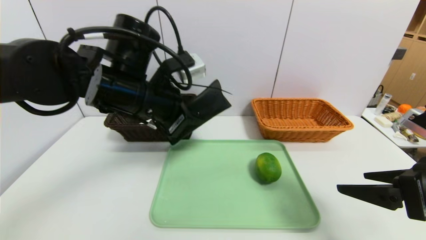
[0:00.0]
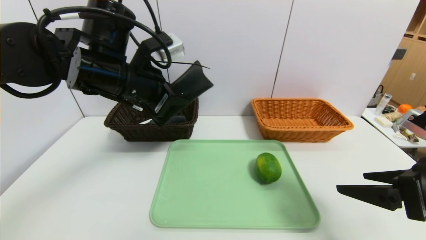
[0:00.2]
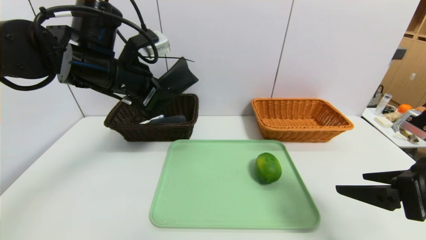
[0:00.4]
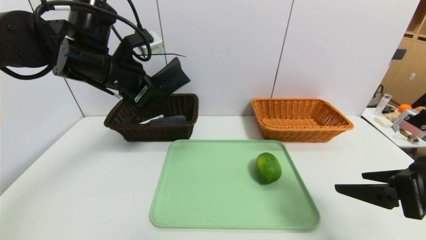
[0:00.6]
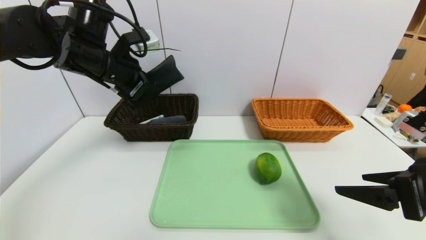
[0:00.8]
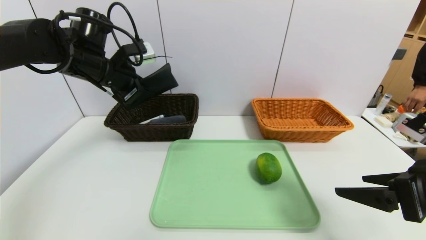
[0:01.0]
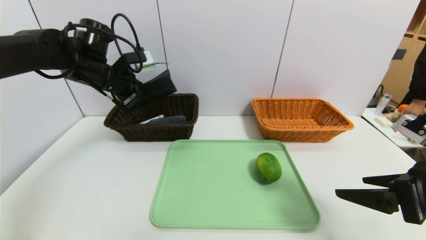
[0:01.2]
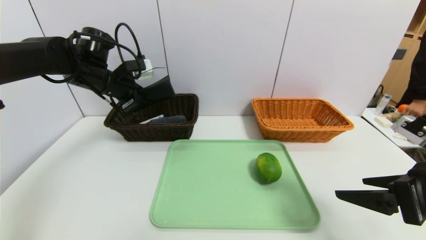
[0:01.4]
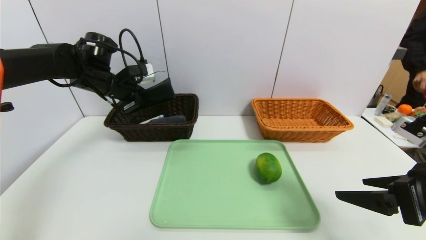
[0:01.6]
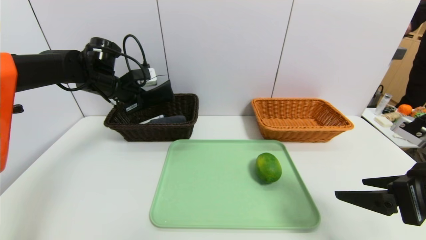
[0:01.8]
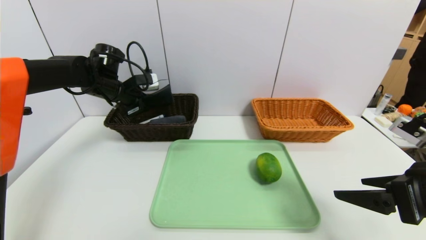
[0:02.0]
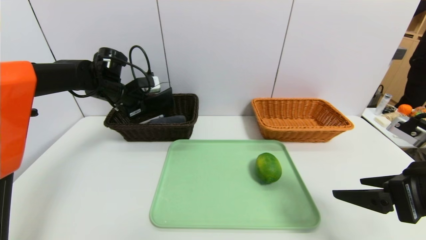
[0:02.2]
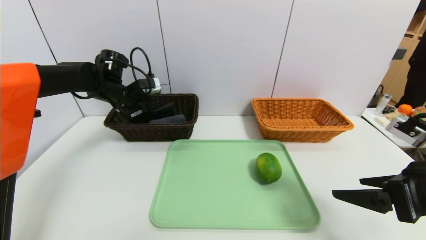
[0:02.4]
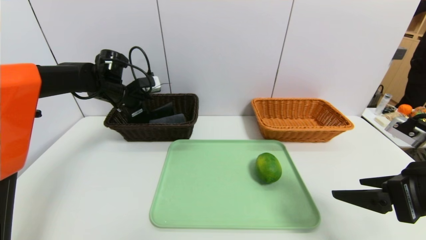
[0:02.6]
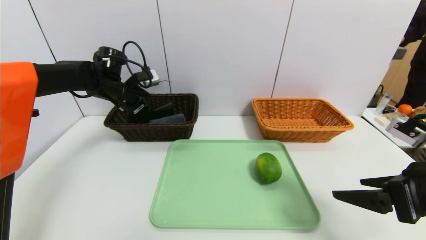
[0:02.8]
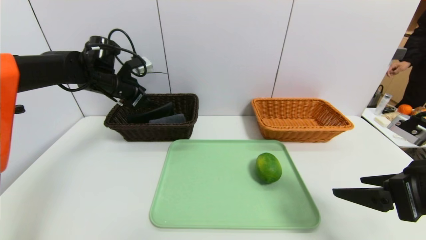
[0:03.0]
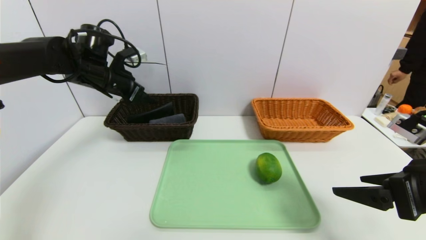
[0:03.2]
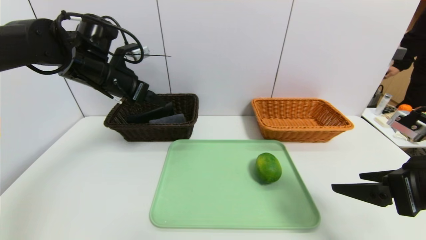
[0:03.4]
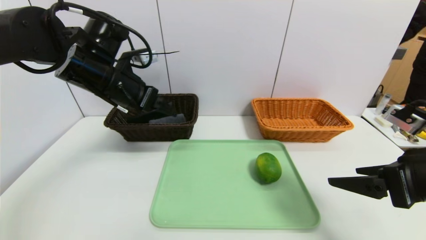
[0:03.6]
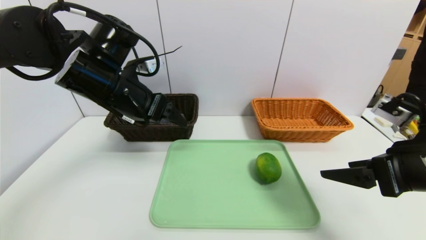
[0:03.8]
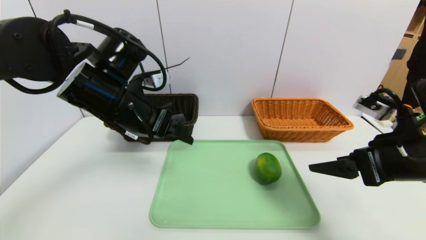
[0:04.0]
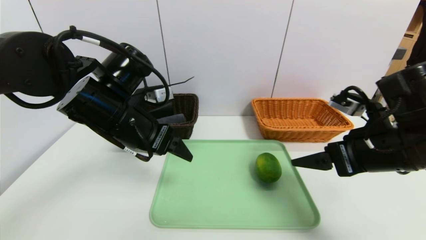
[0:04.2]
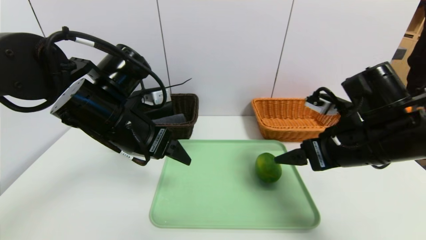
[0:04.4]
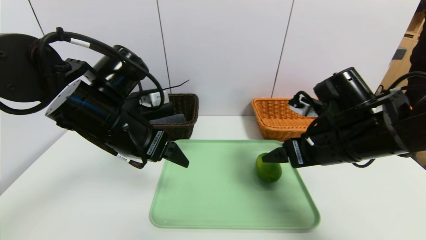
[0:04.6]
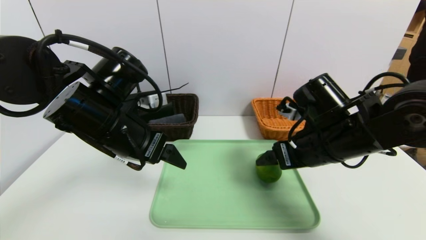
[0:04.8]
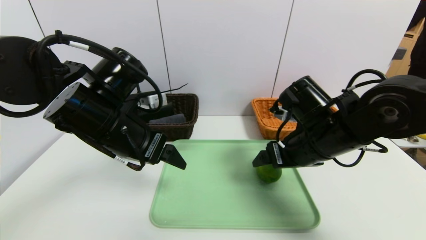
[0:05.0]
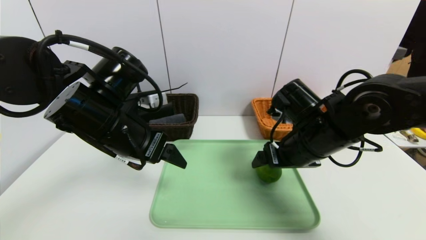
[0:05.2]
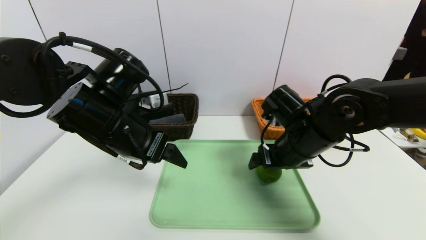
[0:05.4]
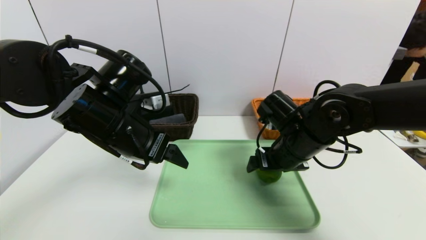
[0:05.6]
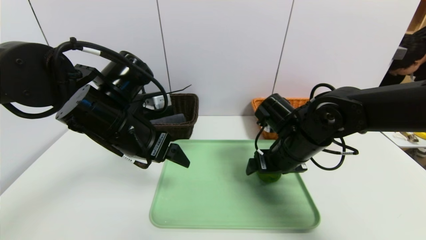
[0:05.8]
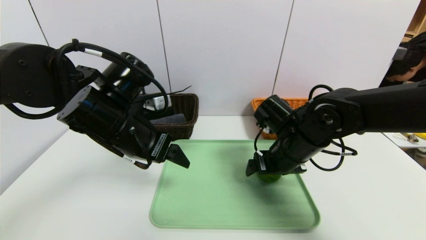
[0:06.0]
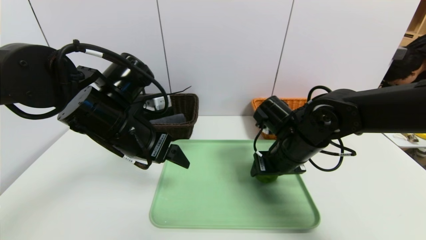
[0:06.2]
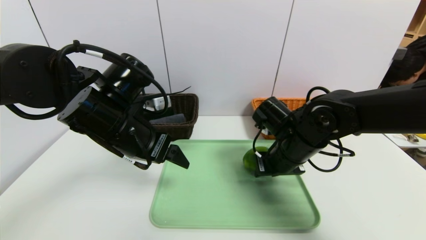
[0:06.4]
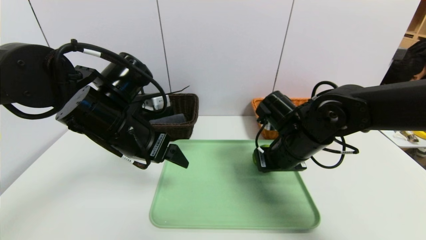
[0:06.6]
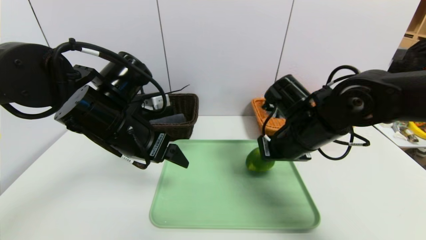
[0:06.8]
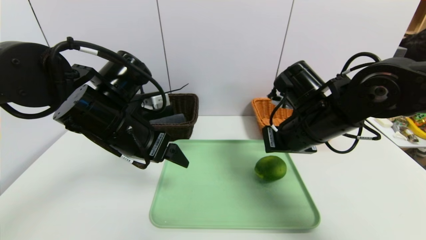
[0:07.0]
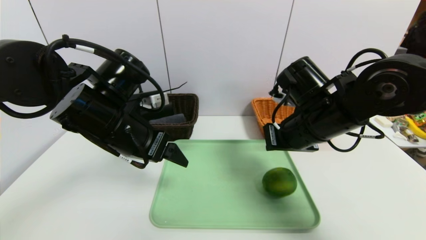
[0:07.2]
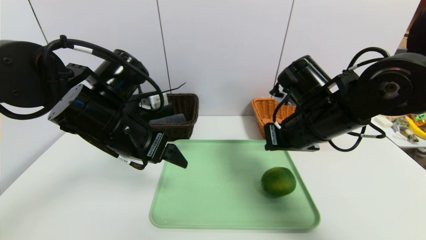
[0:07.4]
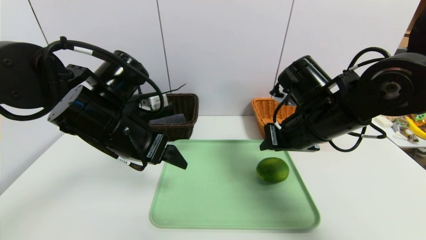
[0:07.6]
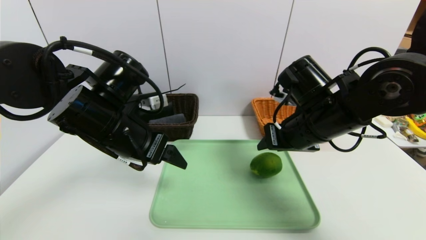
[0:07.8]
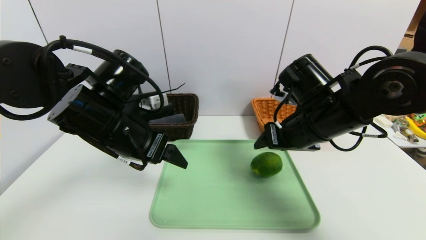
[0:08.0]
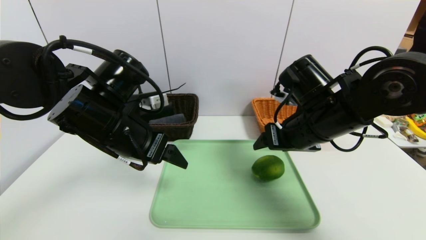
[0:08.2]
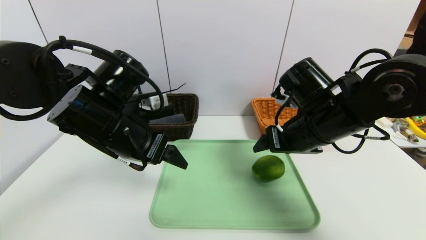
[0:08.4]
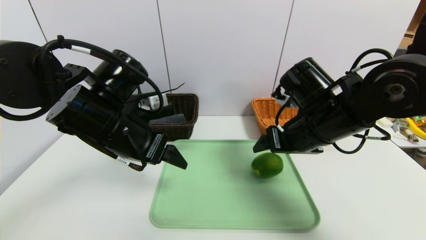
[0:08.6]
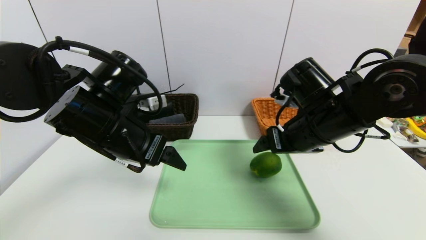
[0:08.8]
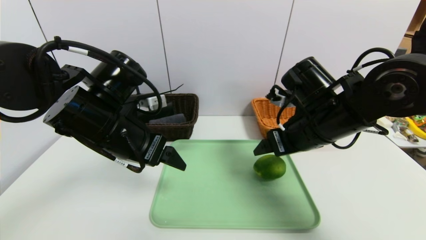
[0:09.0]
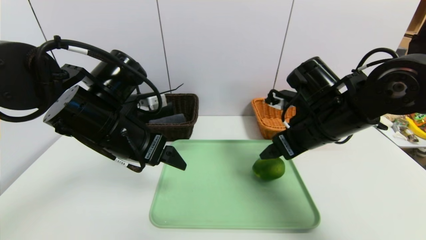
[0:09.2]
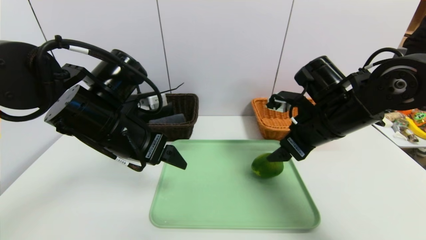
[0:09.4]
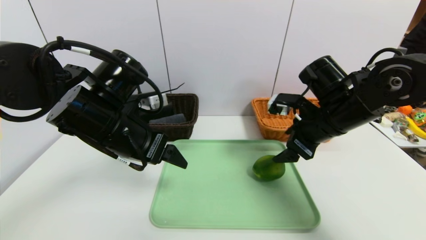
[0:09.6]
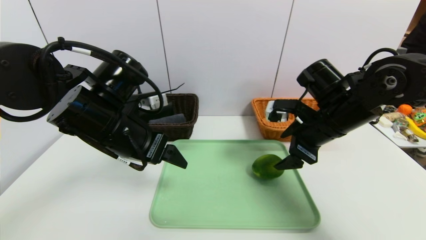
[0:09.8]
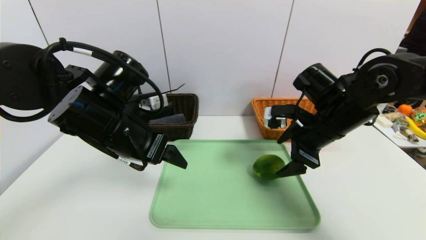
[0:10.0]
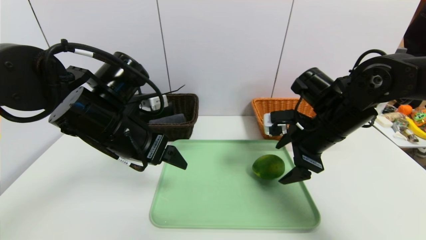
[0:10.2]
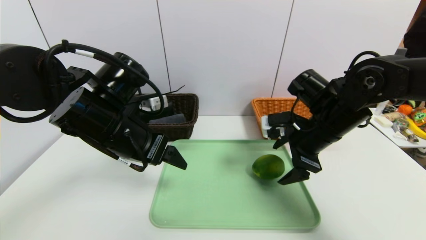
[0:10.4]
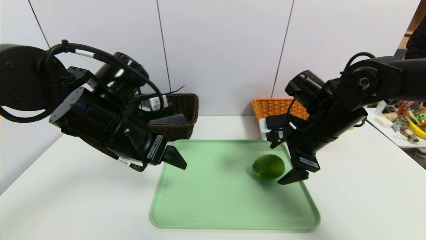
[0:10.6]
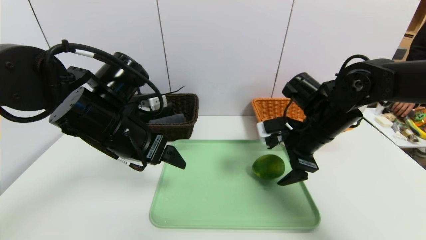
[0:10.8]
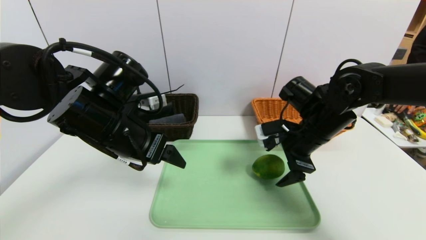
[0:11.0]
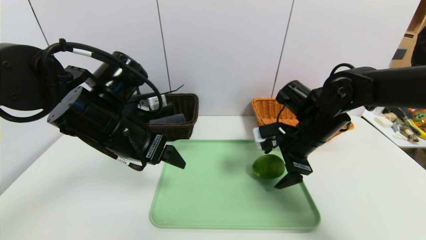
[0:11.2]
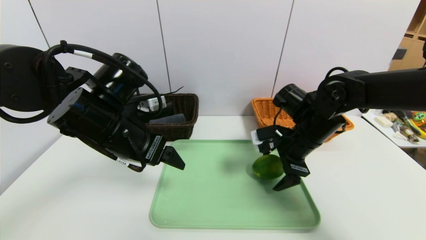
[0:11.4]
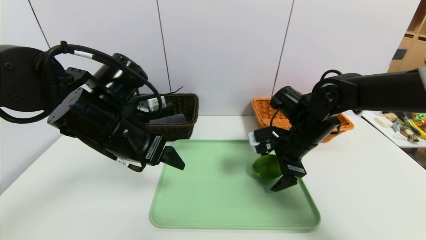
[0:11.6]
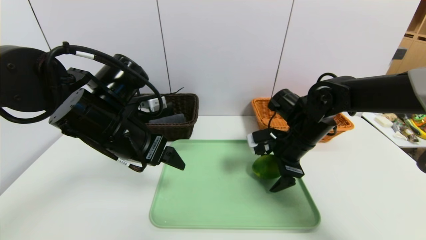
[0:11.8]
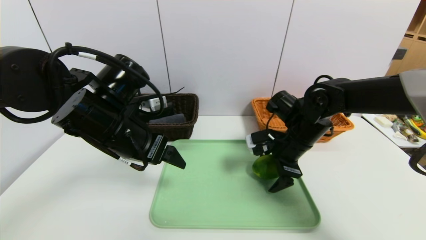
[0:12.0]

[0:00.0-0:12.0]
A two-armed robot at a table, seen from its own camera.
Task of the whole recording: place the food in the right basket with the right gripper, and place the non food items in the left basket with the left gripper.
Step, 0:00.0 to 0:02.8: Grasp the glasses case and put it in the left basket.
0:00.0 to 0:01.6: The left gripper goes approximately 20 cm forward and to the left.
0:01.6 to 0:03.0: The left gripper opens up.
0:03.0 to 0:04.4: The right gripper heads forward and to the left, covering about 10 cm; the left gripper moves backward and to the right, approximately 20 cm.
0:04.4 to 0:06.0: The right gripper is displaced to the left, forward and downward by approximately 10 cm.
0:06.0 to 0:07.6: The right gripper travels upward by approximately 5 cm, and closes.
0:07.6 to 0:09.0: The right gripper opens its fingers.
0:10.4 to 0:12.0: The right gripper travels downward by roughly 5 cm.

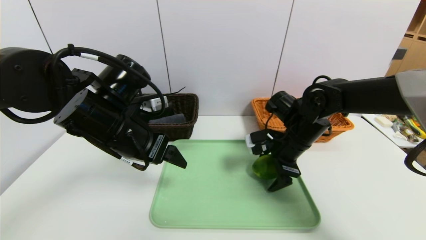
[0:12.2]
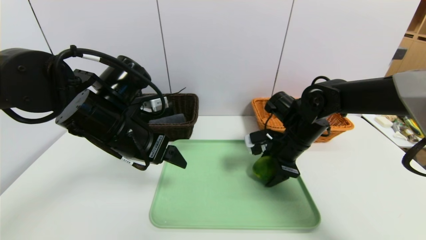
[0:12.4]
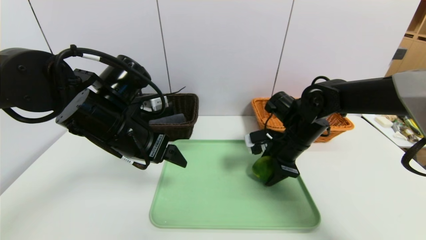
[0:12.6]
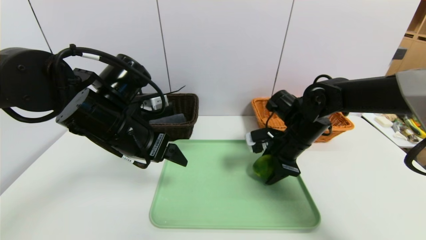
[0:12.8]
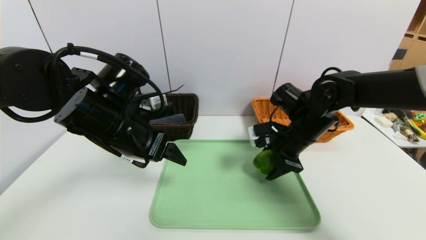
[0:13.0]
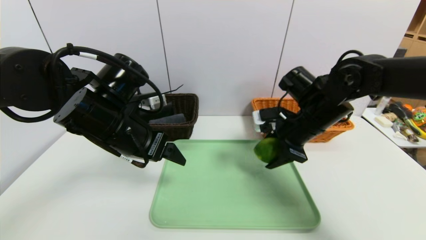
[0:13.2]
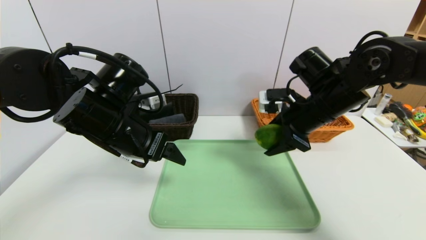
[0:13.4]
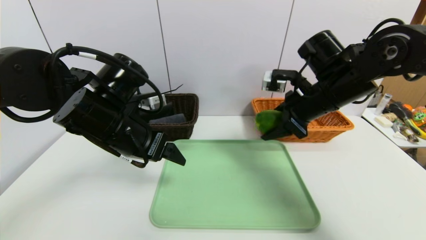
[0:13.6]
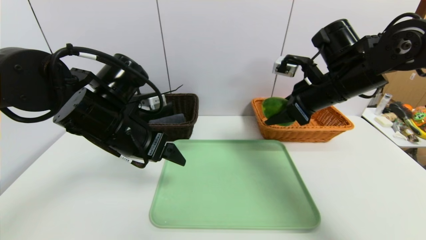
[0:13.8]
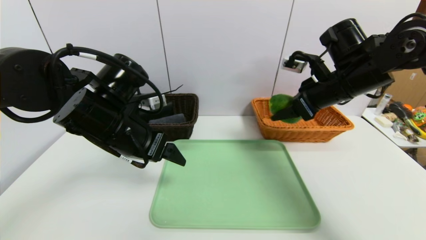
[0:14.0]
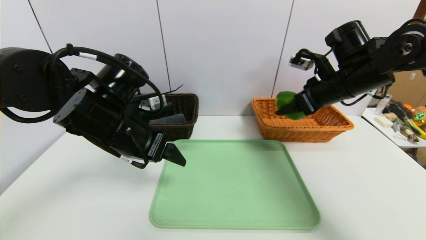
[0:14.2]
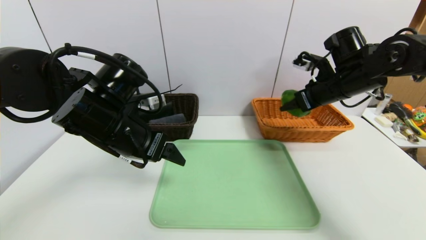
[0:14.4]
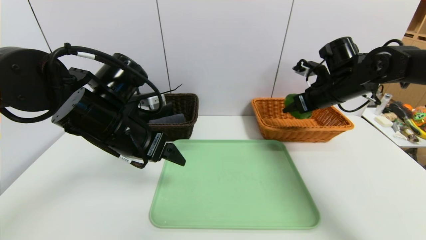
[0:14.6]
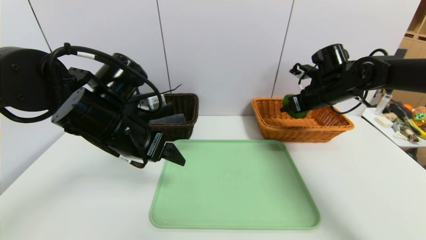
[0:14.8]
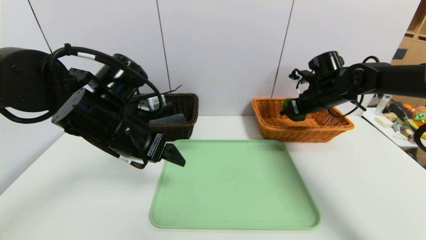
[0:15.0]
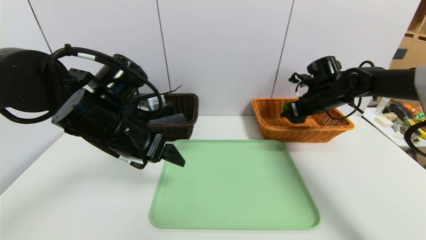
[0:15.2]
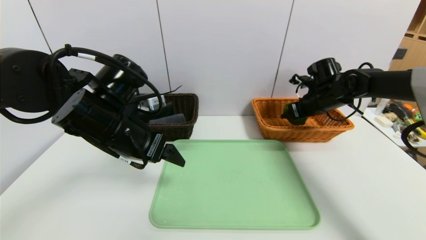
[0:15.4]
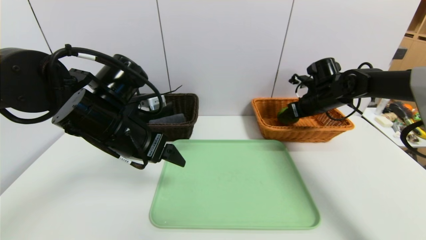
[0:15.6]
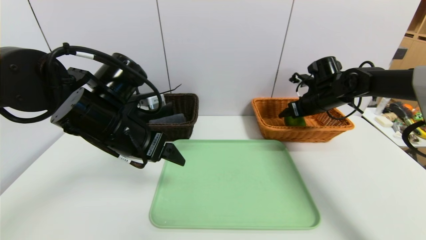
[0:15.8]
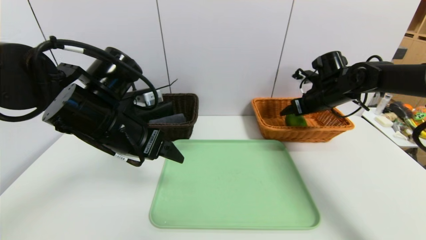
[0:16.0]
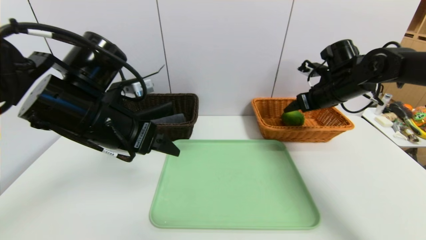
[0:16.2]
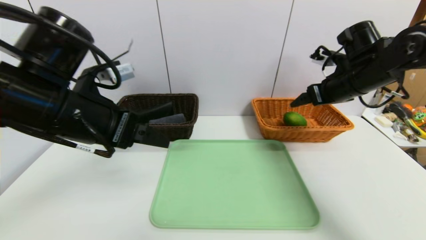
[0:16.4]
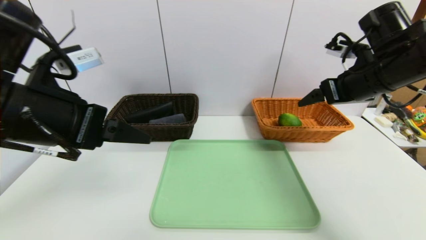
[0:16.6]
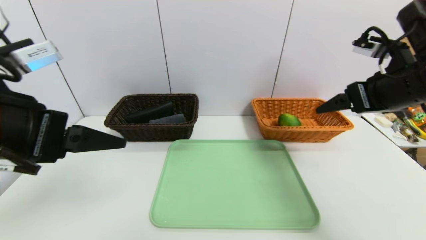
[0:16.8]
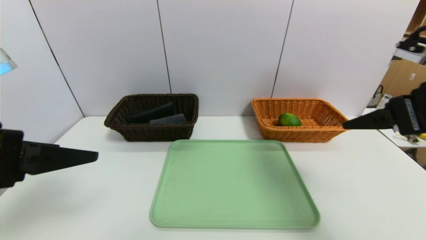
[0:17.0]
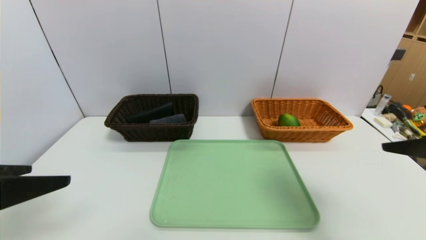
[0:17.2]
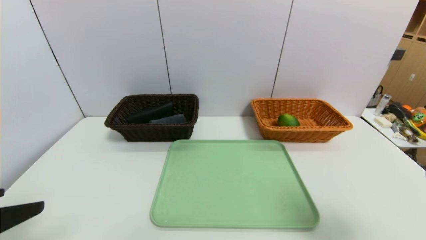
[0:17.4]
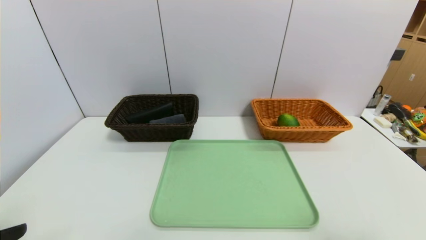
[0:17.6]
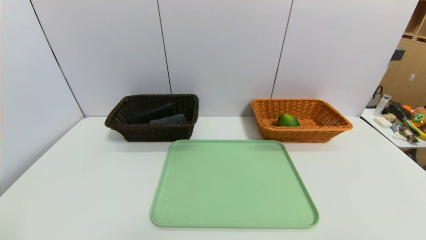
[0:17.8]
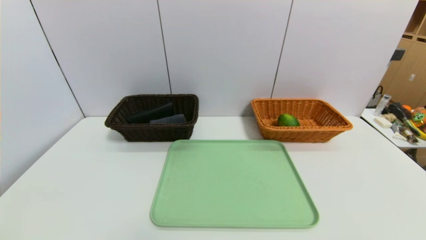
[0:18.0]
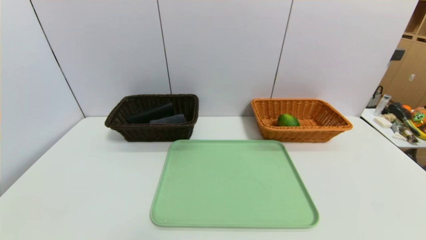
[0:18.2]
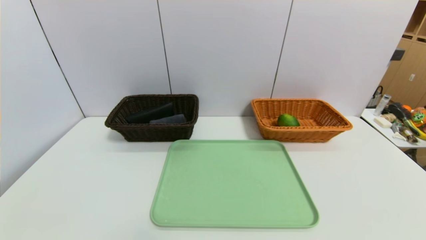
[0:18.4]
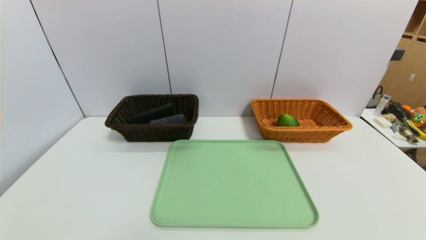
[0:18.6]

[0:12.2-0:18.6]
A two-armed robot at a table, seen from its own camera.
Task of the whole recording: place the food in the right basket with the right gripper, and place the non food items in the left basket with the left gripper.
Step, 0:12.2 to 0:16.0: Grasp the green lemon and put it in the right basket.
0:12.2 to 0:13.8: The right gripper is displaced upward by roughly 10 cm, and closes its fingers.
0:13.8 to 0:15.4: The right gripper moves forward, downward and to the right, approximately 15 cm.
0:15.4 to 0:17.0: The left gripper is displaced backward, to the left and upward by some 20 cm. Meanwhile the right gripper travels backward and upward by some 30 cm, and opens.
0:17.0 to 0:18.6: The left gripper travels downward and backward by approximately 20 cm; the right gripper moves backward and downward, some 30 cm.
